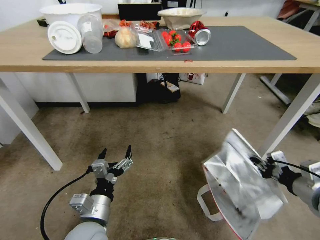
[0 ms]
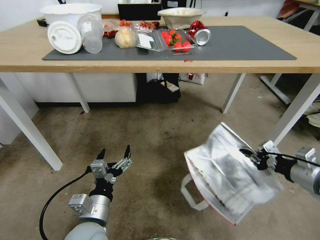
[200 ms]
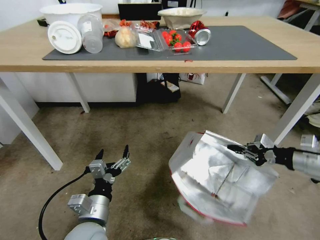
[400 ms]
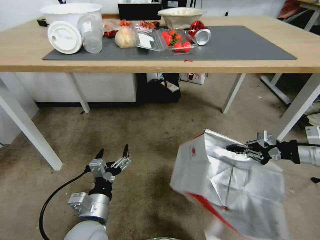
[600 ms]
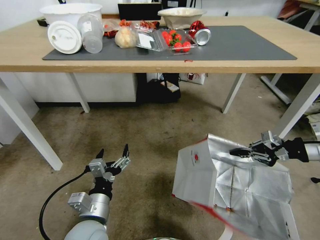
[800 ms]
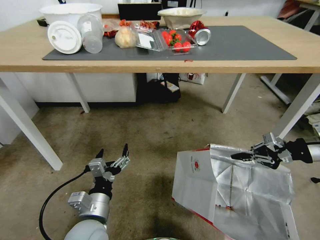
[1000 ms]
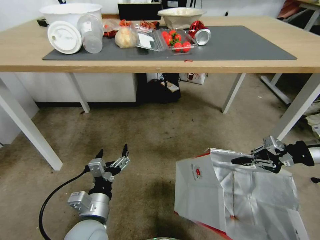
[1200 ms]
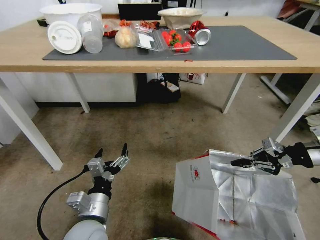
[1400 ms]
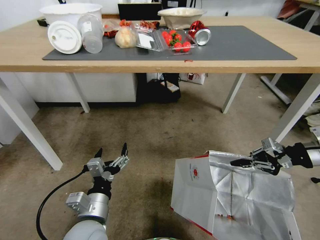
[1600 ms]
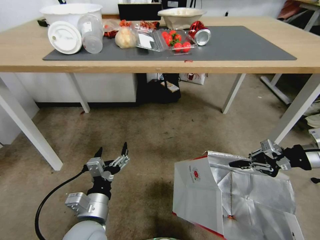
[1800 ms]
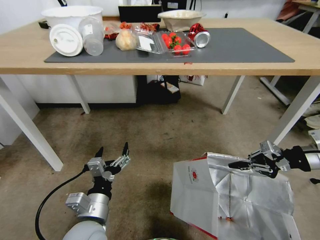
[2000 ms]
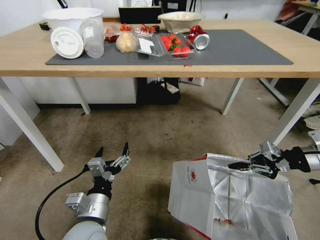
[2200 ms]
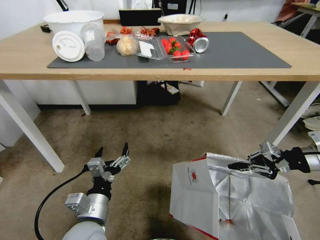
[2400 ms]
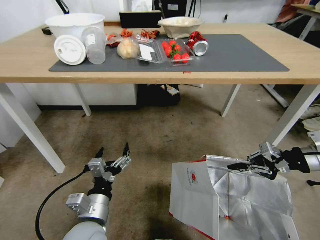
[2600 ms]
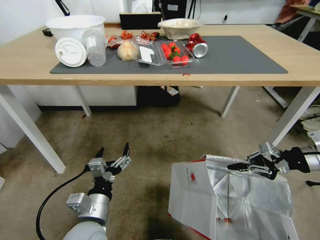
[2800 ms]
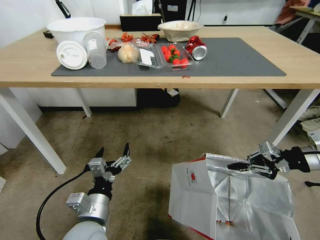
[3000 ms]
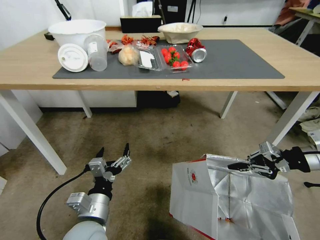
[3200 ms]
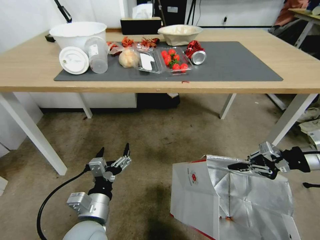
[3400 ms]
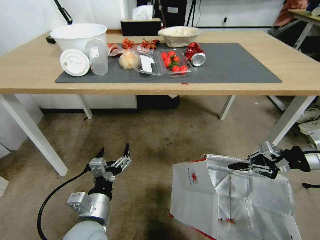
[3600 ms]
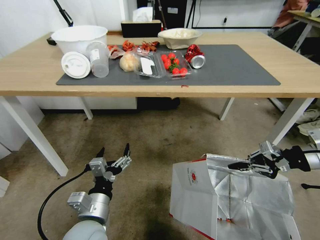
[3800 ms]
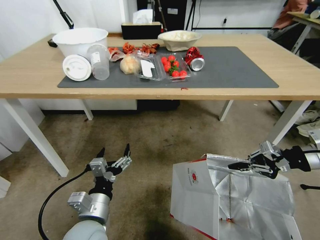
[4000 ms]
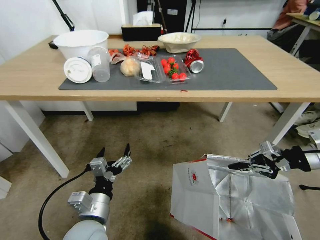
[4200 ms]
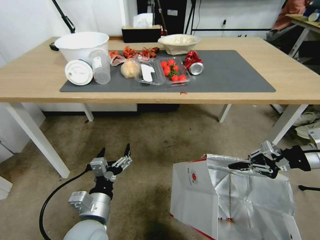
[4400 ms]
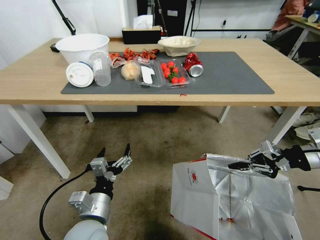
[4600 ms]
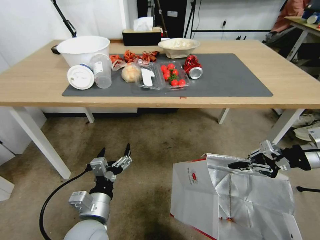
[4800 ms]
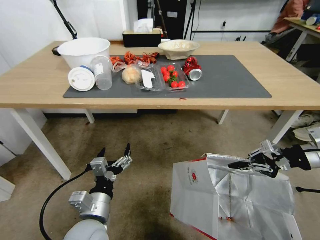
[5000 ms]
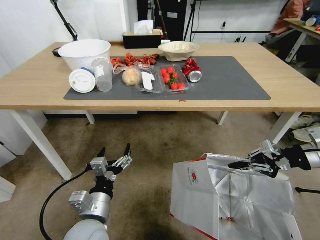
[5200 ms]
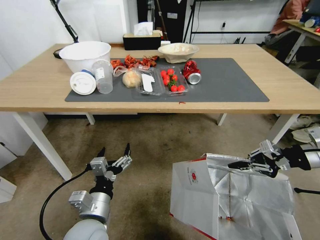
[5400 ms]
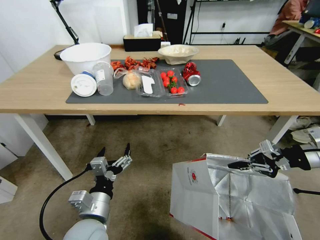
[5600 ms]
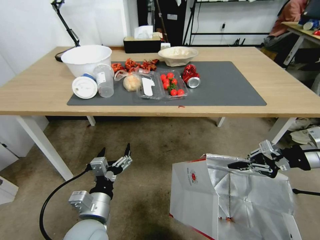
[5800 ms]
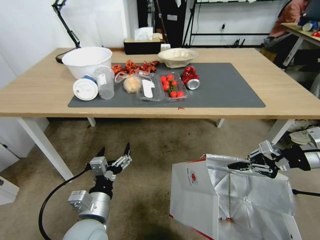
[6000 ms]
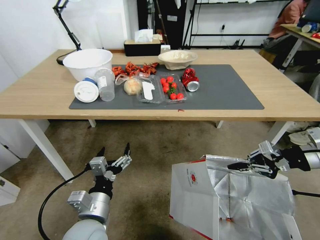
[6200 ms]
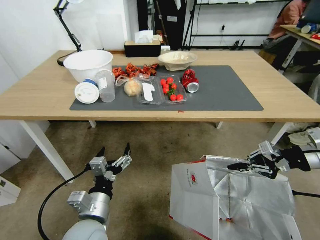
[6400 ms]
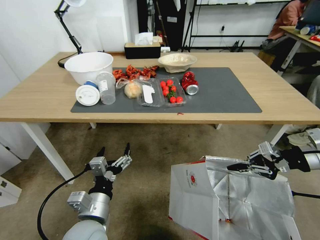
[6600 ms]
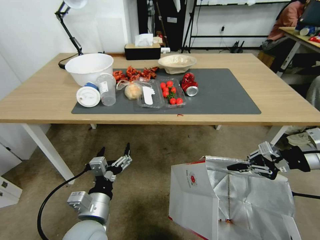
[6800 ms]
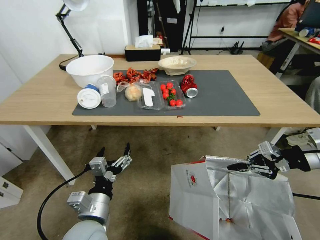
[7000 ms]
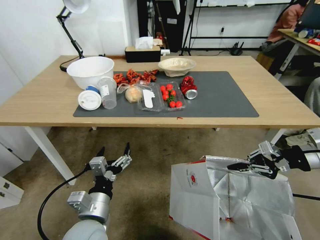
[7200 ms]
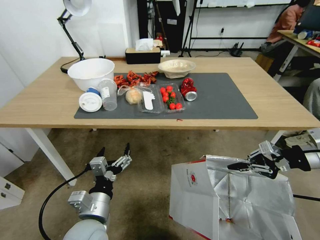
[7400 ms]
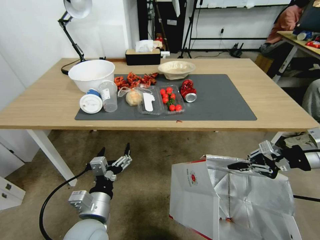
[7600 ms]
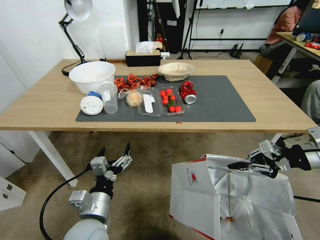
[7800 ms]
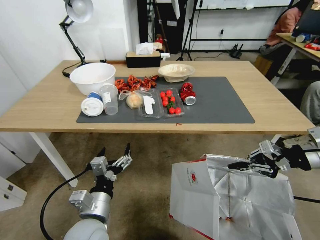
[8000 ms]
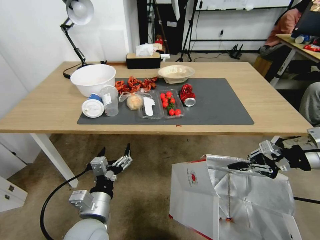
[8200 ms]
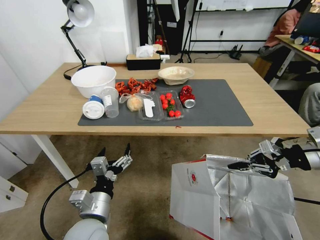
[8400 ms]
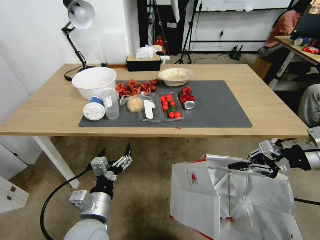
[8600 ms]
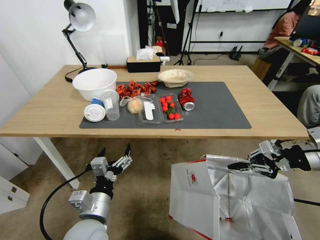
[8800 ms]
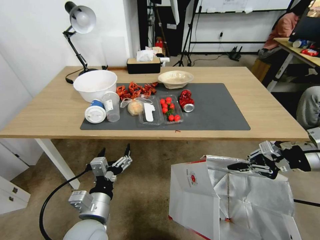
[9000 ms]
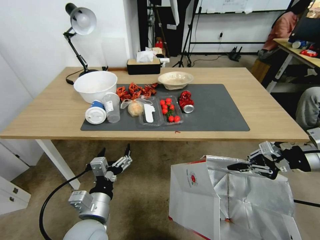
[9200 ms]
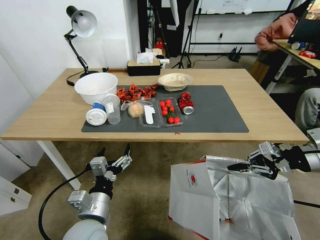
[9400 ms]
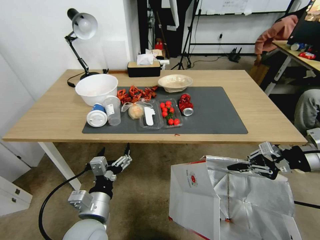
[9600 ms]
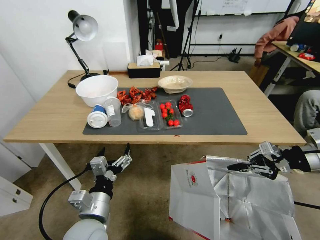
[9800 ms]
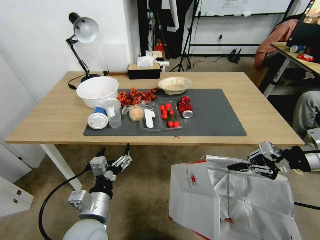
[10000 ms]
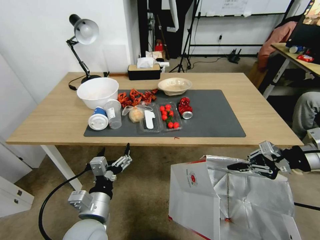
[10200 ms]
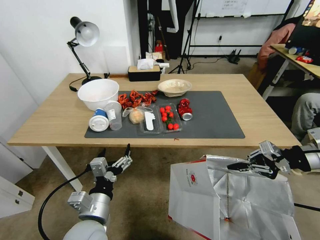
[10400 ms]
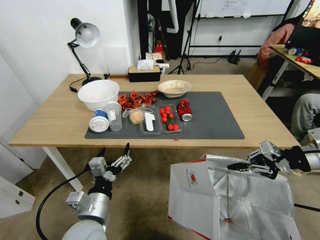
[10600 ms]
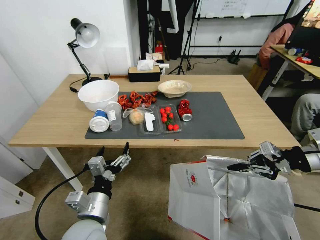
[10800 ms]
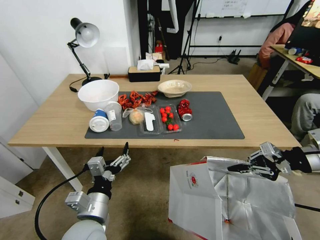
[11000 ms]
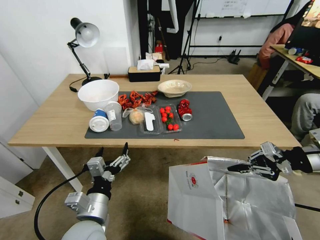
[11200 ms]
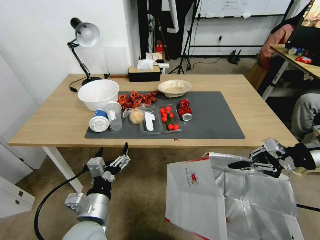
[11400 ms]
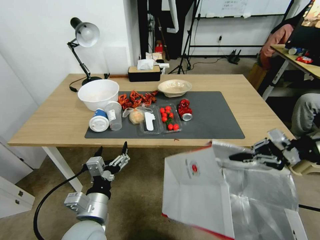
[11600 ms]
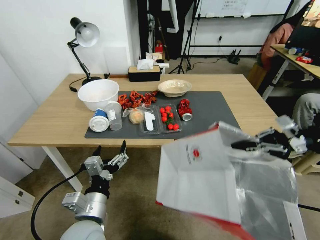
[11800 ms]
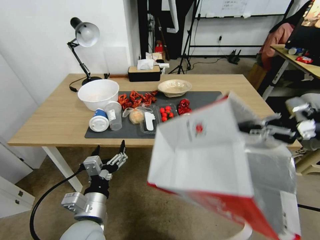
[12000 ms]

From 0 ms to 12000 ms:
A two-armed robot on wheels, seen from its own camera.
Task of the whole recording: Pick up the food delivery bag from the floor and place it on the table.
From 0 ms to 1600 ms: The right gripper moves forward, upward and to the right, some 15 cm.
From 10400 ms to 12000 ms: The right gripper moves upward, roughly 5 cm.

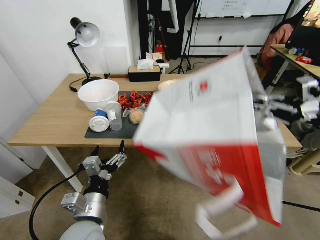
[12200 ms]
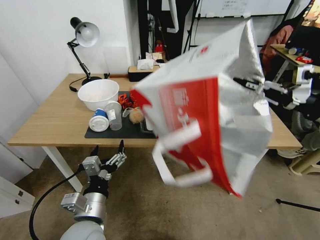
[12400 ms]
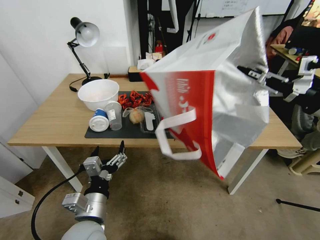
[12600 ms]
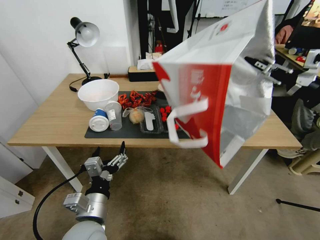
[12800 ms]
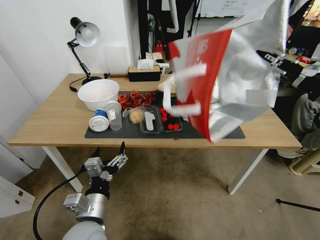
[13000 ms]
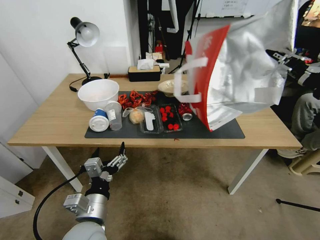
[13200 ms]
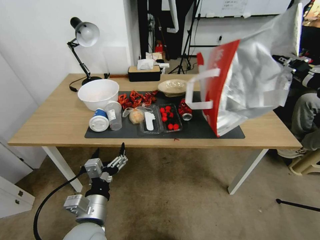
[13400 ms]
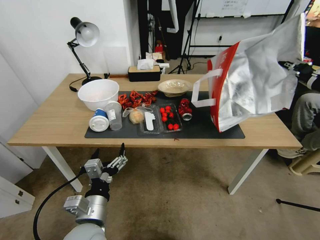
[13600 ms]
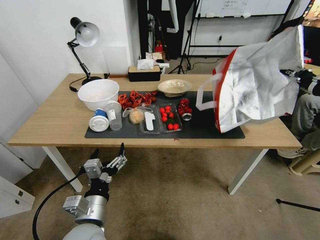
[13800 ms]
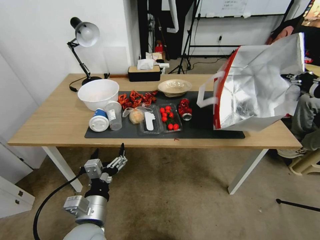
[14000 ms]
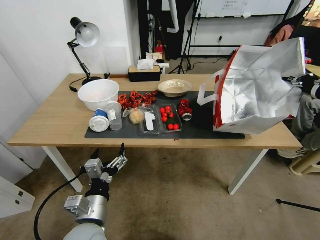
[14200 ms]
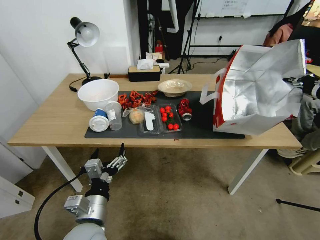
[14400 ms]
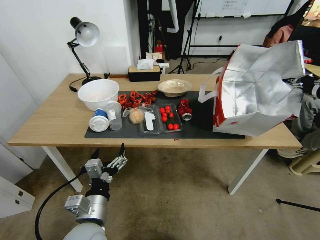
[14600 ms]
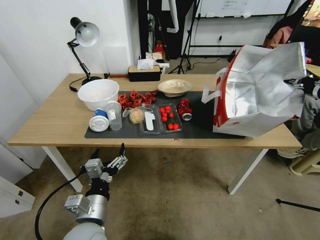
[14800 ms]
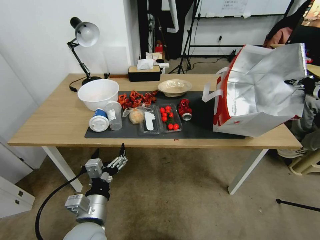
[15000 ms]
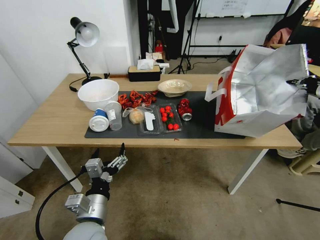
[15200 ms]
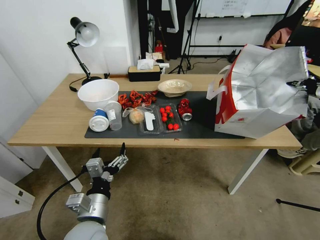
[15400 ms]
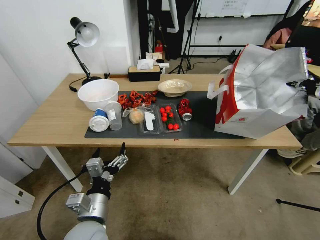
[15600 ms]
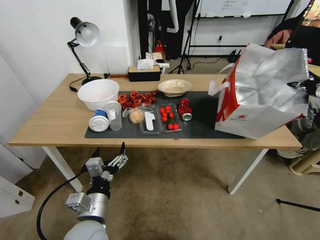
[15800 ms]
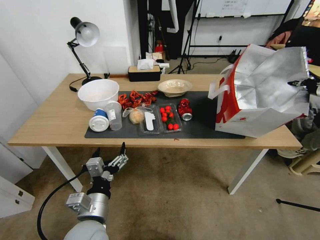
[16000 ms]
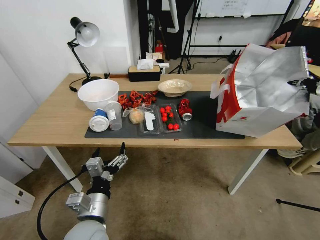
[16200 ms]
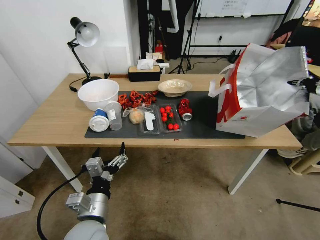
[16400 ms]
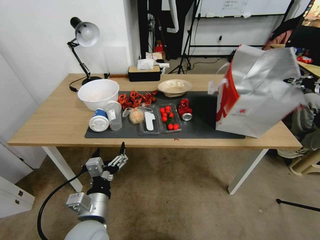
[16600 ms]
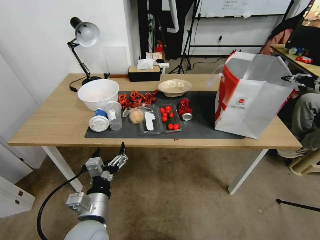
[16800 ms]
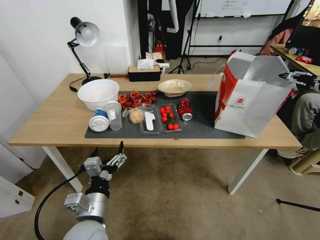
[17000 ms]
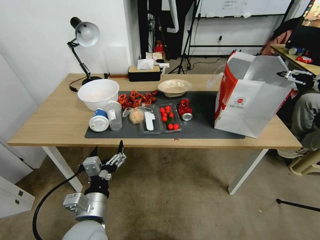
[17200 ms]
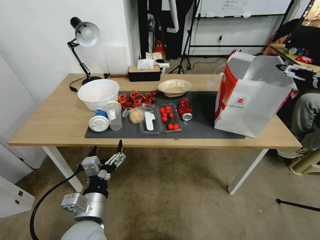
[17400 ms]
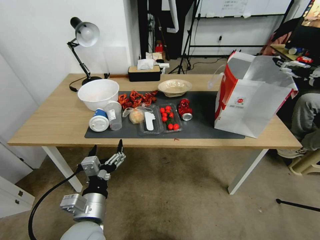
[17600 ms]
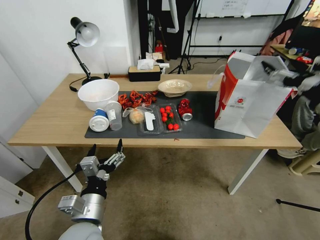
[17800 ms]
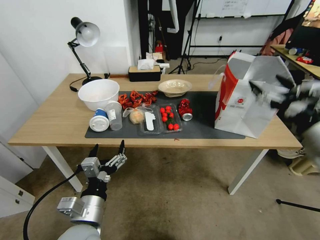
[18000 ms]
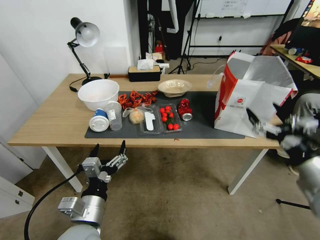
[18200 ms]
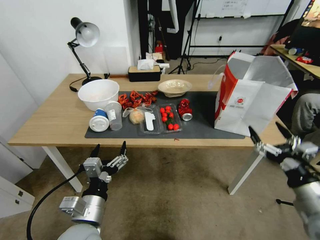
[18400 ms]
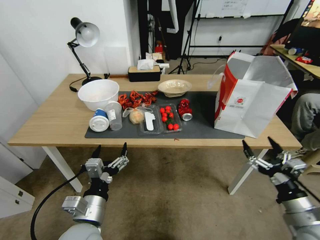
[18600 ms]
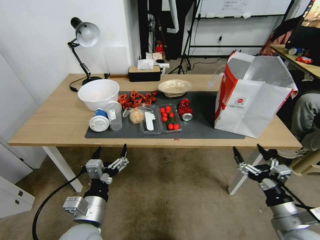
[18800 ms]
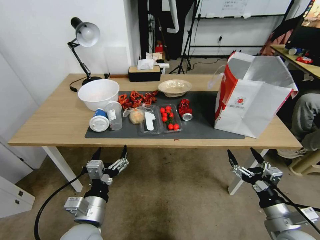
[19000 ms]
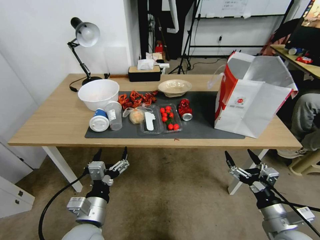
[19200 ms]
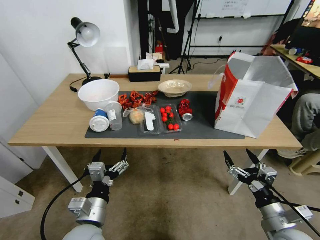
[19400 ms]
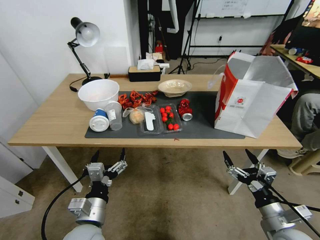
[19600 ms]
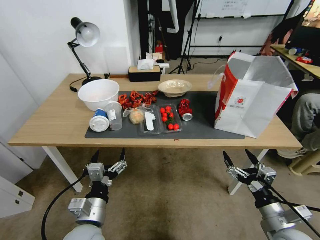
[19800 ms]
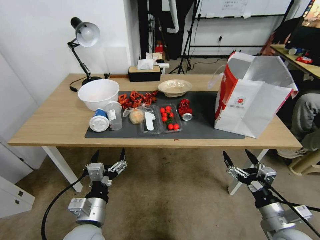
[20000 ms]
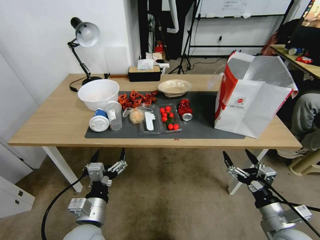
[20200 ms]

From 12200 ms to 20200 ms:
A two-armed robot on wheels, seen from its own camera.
Task of the whole recording: Pick up the food delivery bag from the floor and place it on the table.
From 13800 ms to 15400 ms: The right gripper shifts about 5 cm to the right.
From 15400 ms to 17000 ms: The right gripper opens.
From 17000 ms to 18600 ms: The right gripper is displaced downward and backward by approximately 35 cm.
From 18600 ms to 20200 ms: The right gripper moves approximately 5 cm.
